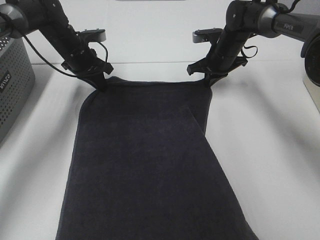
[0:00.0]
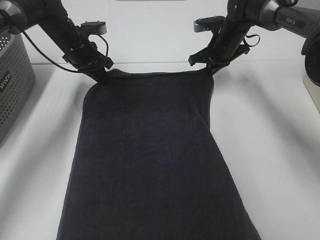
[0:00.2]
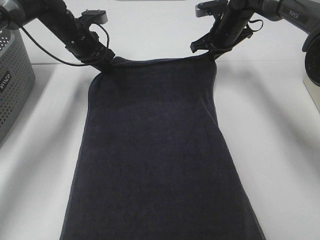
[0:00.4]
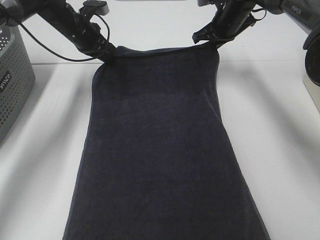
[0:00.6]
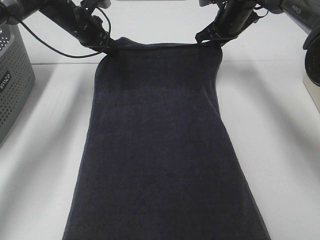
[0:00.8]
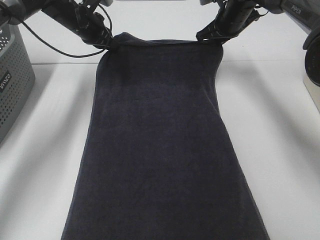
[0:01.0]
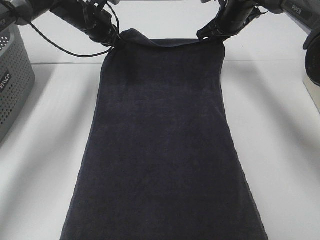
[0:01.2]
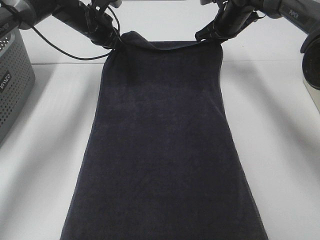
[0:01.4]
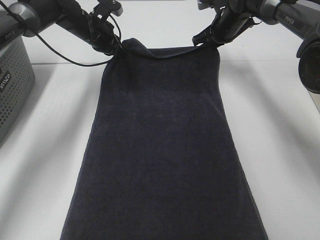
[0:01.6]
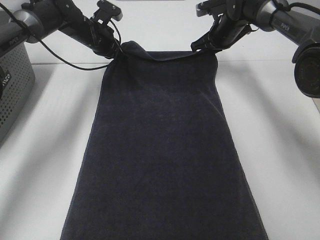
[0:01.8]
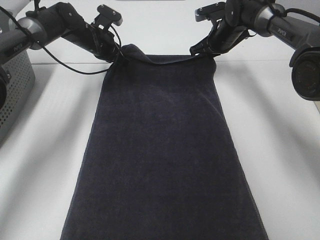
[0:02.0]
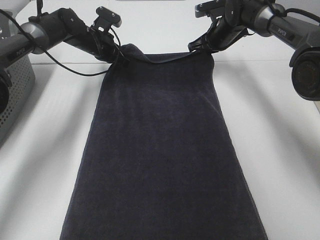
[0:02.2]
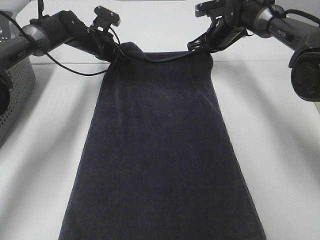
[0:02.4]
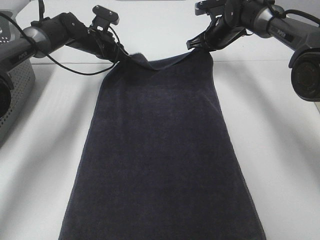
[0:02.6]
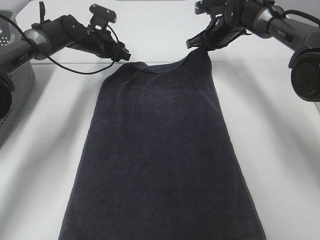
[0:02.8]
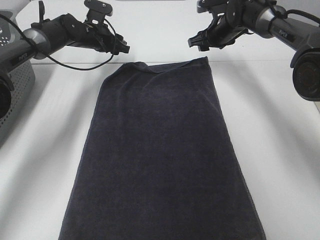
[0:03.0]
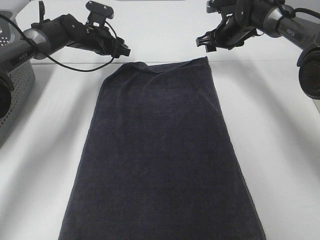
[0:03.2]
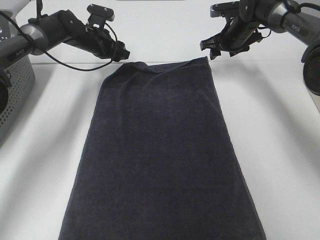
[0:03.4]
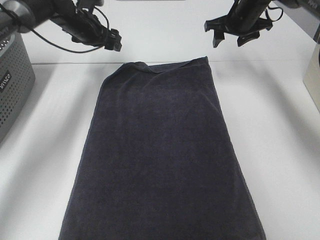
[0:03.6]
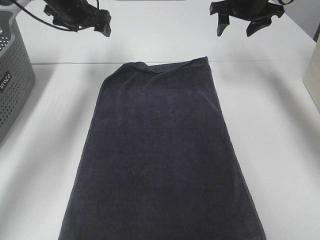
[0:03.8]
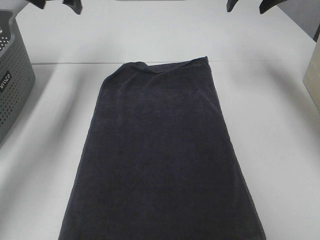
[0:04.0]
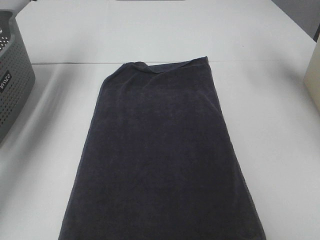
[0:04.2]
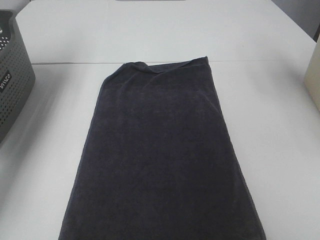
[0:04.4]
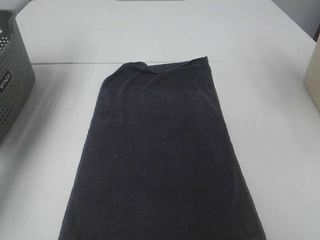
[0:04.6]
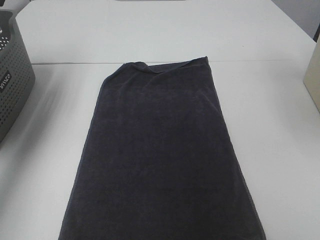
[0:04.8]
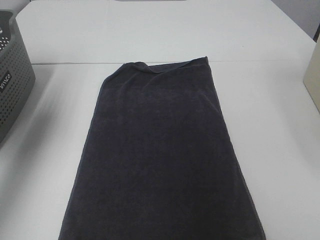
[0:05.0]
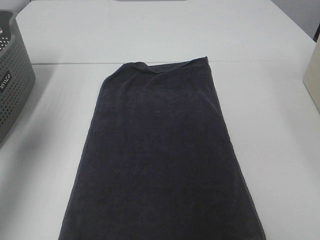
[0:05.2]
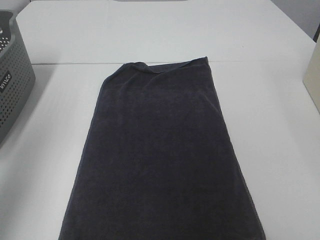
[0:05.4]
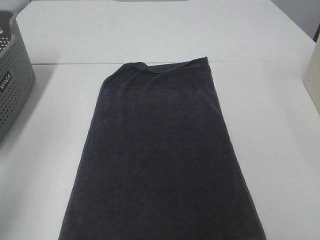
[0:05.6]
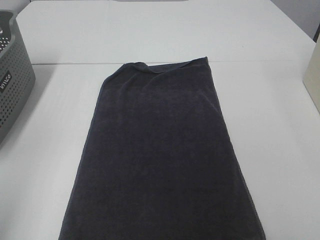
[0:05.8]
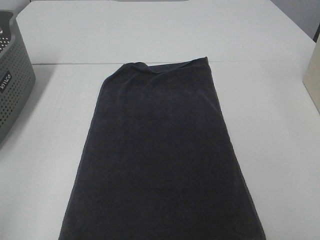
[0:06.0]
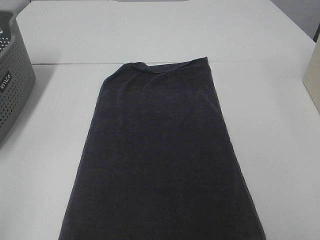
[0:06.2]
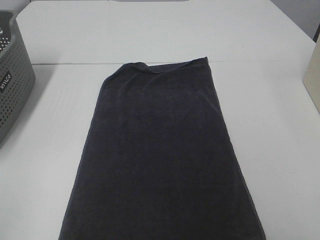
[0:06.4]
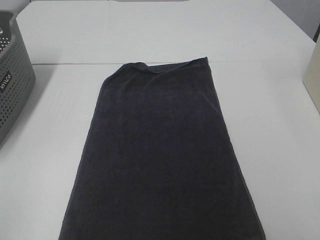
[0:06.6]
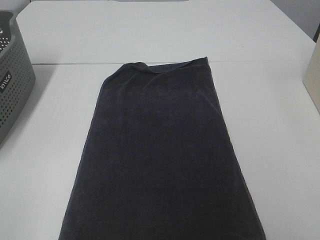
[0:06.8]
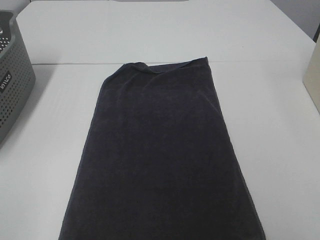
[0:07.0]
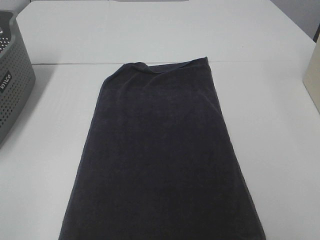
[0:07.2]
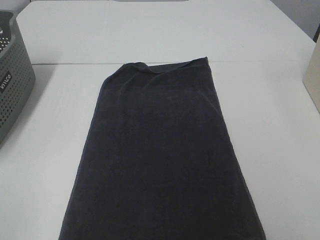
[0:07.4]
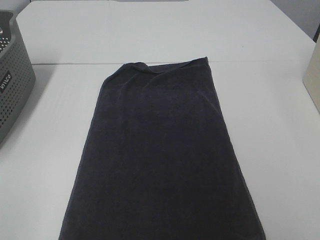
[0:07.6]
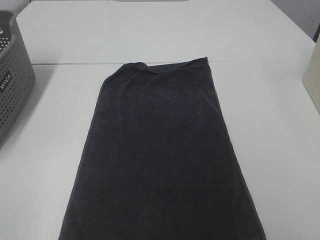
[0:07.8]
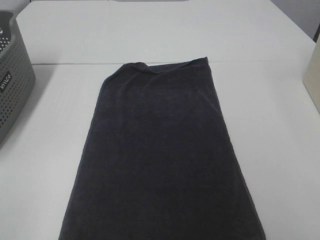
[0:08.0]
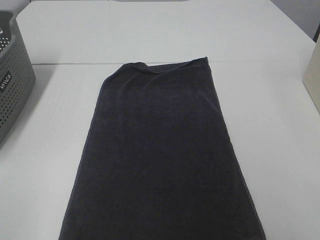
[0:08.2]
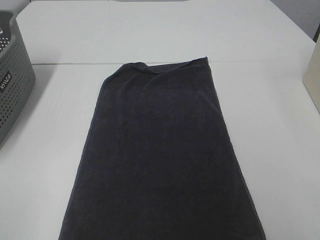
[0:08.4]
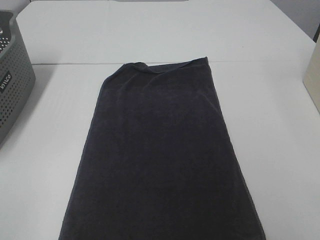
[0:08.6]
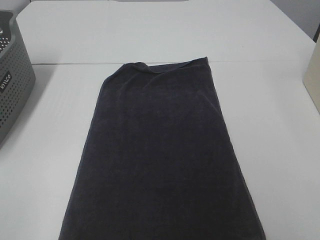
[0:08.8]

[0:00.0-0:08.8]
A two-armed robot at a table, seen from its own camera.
Task of the whole recording: Remove the towel and place it.
0:00.0 to 0:01.4: The right gripper goes approximately 5 cm upward. The left gripper ends up roughly 5 cm from where it was.
0:01.4 to 0:03.0: The right gripper opens, while the left gripper heads downward, covering roughly 5 cm, and opens its fingers.
0:03.0 to 0:04.4: The left gripper heads upward, to the left and backward, covering about 30 cm. Meanwhile the right gripper goes roughly 30 cm upward and backward.
0:04.4 to 0:05.8: Both grippers travel together backward, some 40 cm.
0:07.4 to 0:08.8: Neither gripper changes place.

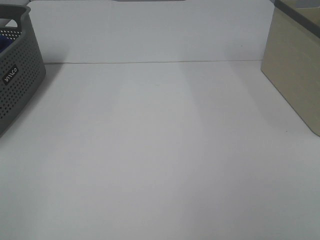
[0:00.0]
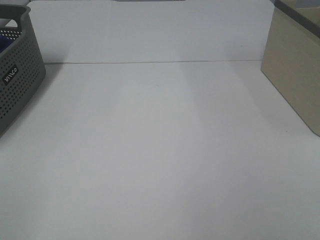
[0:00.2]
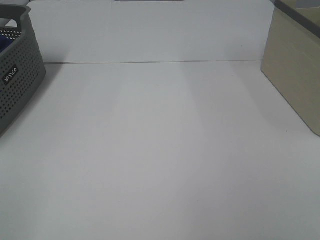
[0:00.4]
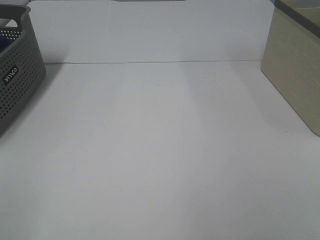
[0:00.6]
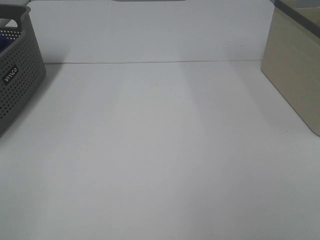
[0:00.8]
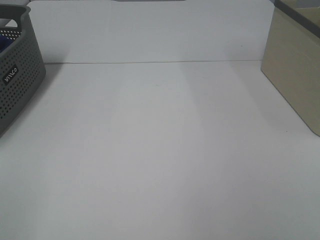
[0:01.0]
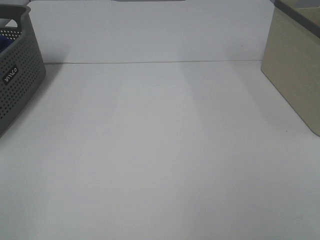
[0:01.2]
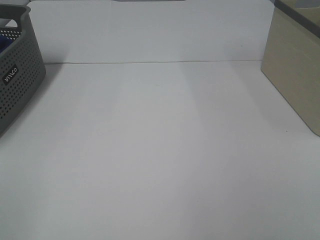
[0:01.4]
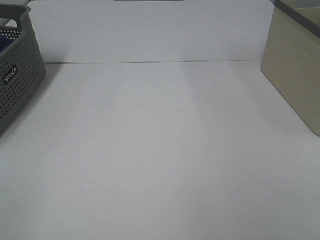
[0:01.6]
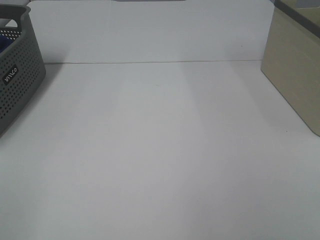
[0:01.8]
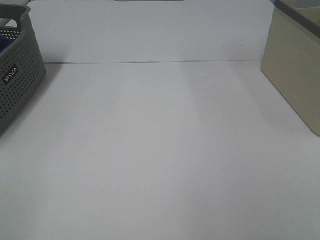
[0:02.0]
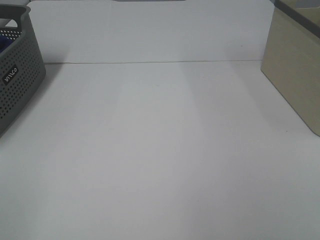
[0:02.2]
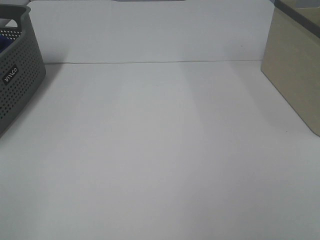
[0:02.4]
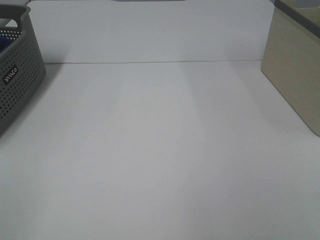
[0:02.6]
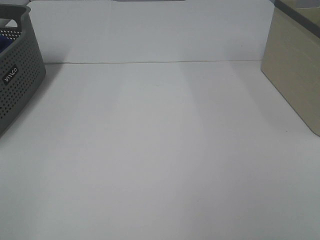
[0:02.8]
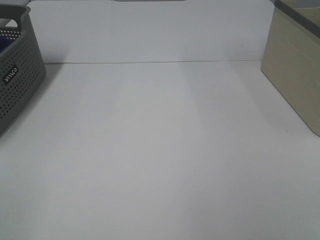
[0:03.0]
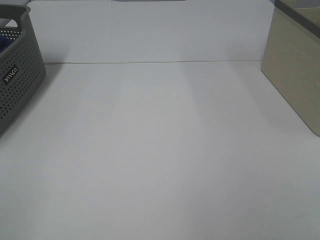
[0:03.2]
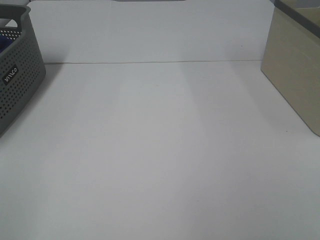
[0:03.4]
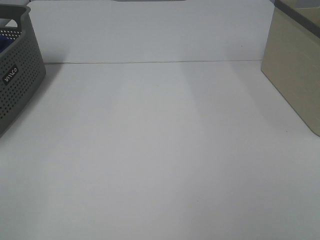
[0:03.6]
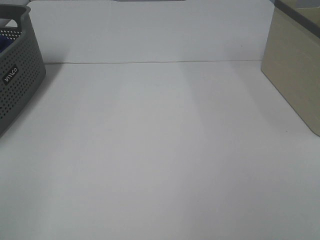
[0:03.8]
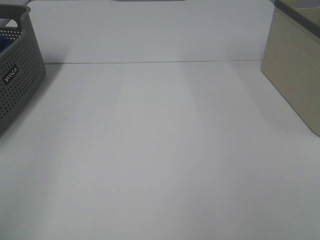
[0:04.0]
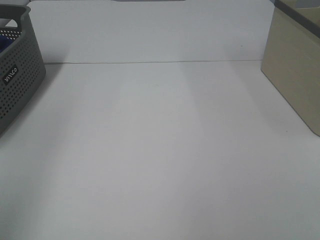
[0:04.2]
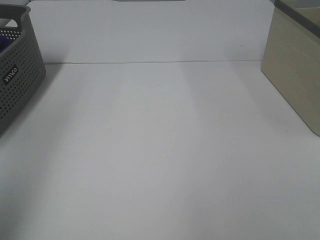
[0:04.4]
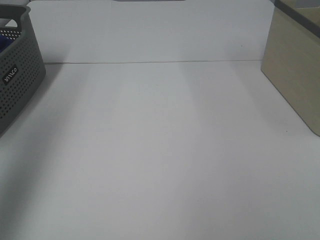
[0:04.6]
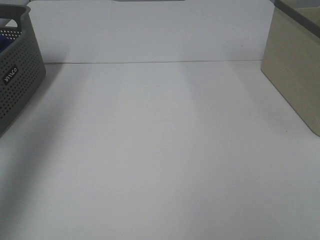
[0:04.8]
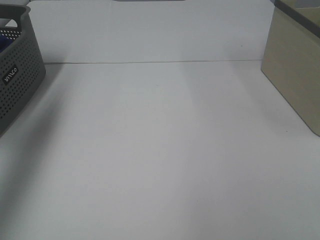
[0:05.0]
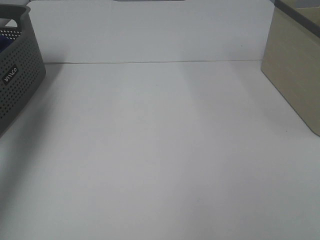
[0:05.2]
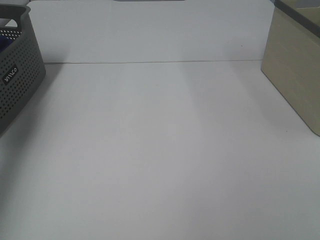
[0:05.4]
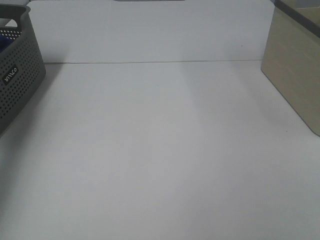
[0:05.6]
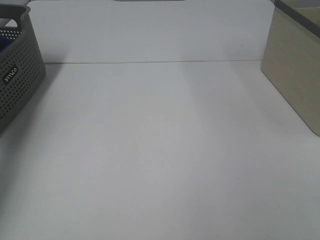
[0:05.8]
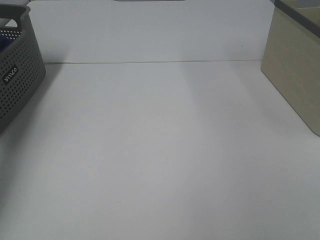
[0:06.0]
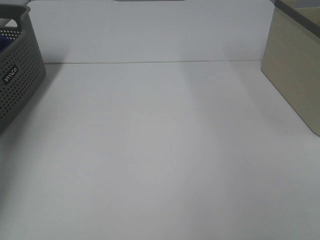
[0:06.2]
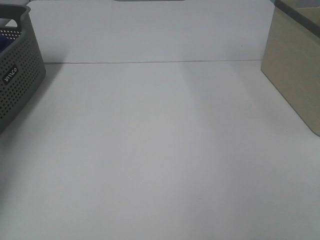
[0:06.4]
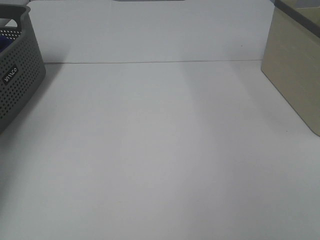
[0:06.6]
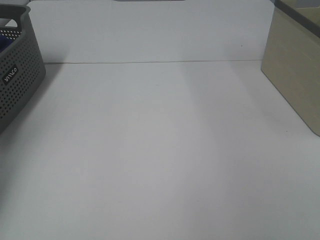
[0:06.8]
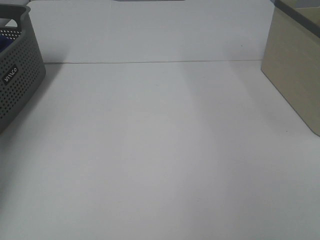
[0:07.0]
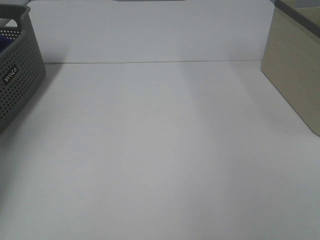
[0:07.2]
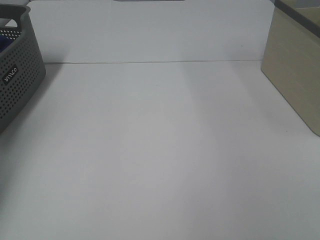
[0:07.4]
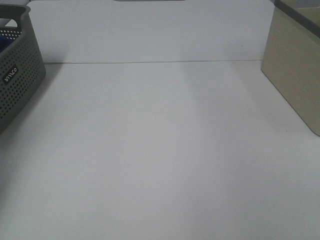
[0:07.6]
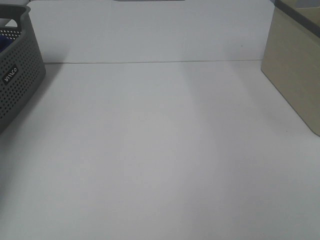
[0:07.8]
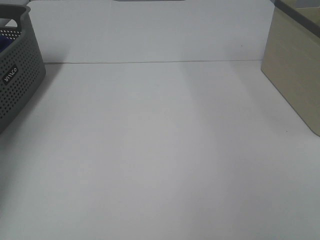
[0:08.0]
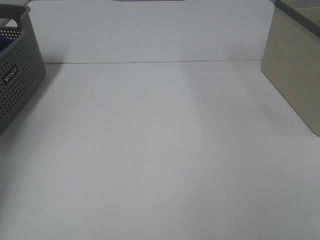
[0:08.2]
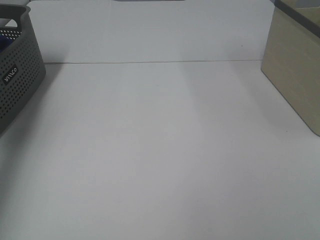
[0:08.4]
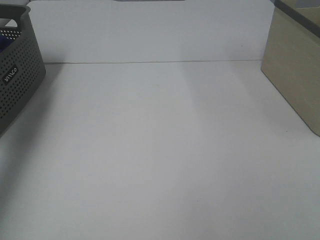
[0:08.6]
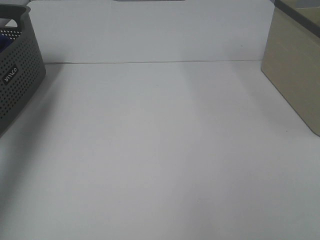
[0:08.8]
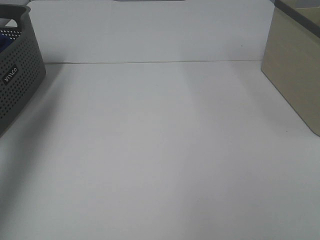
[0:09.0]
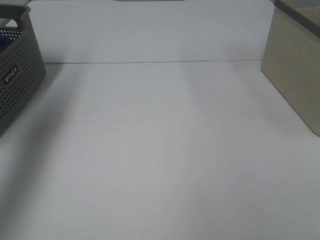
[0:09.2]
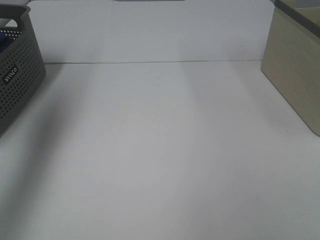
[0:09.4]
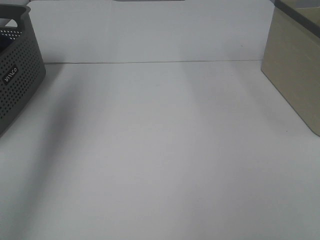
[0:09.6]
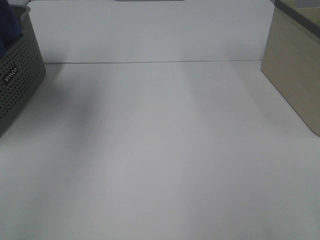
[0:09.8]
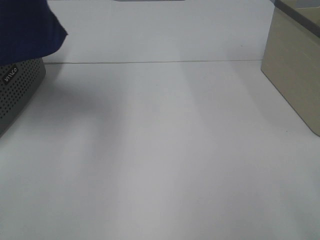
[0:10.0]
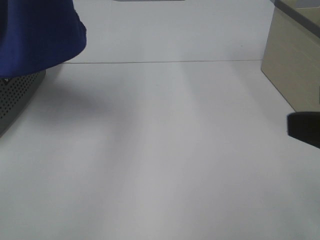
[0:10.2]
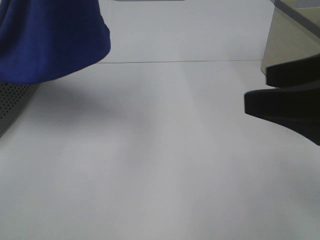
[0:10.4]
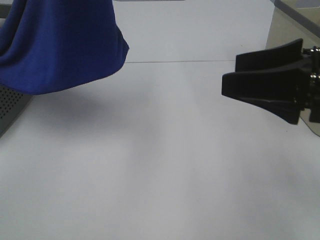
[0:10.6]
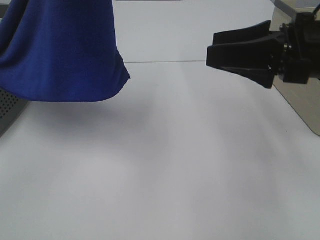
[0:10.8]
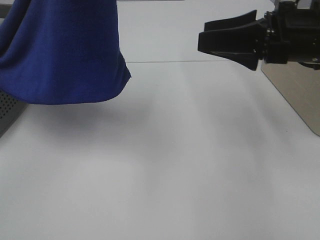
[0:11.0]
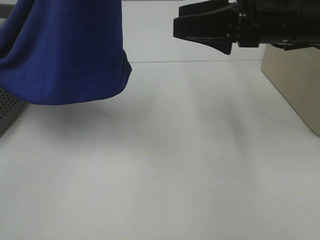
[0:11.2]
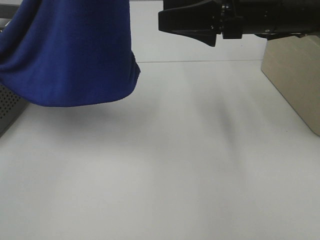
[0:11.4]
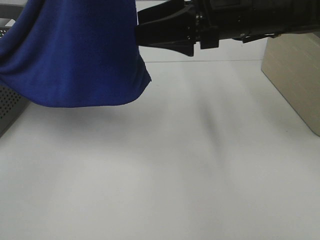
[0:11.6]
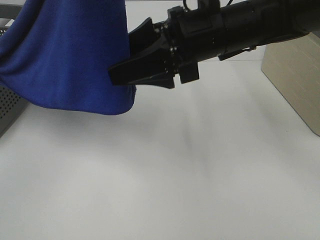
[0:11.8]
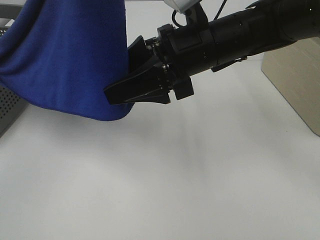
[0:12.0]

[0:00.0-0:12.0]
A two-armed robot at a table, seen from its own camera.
Task of the whole recording: Remove the towel and place it.
0:00.0 to 0:03.0: Neither gripper changes place.
0:03.0 to 0:04.4: The left gripper travels upward and forward by approximately 20 cm.
0:04.4 to 0:06.0: The left gripper shifts approximately 40 cm forward and downward.
0:07.6 to 0:09.0: The left gripper goes roughly 25 cm upward.
0:09.0 to 0:10.4: The right gripper shifts about 15 cm forward and to the left; the left gripper moves to the right and upward, approximately 25 cm.
0:10.4 to 0:12.0: The left gripper shifts by roughly 5 cm; the right gripper heads to the left and forward, covering approximately 20 cm.

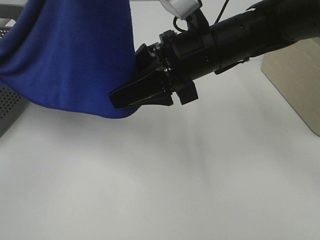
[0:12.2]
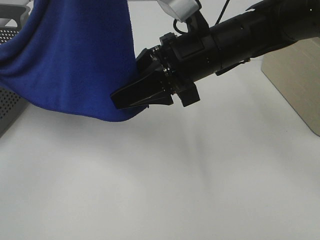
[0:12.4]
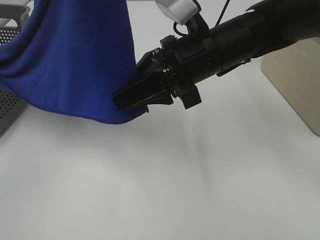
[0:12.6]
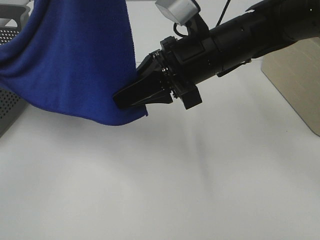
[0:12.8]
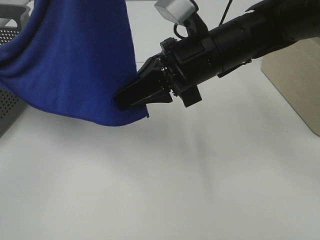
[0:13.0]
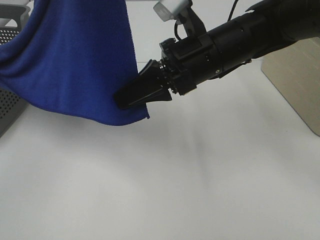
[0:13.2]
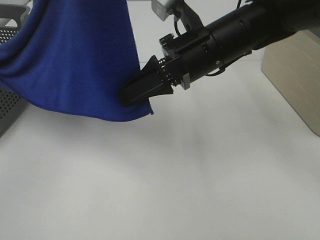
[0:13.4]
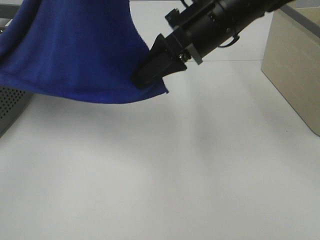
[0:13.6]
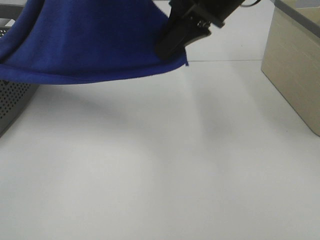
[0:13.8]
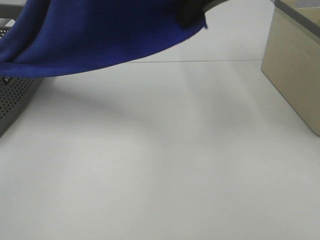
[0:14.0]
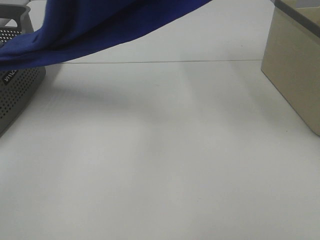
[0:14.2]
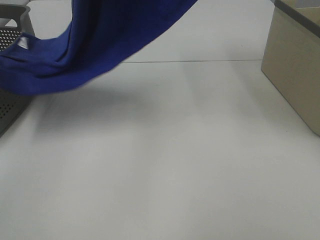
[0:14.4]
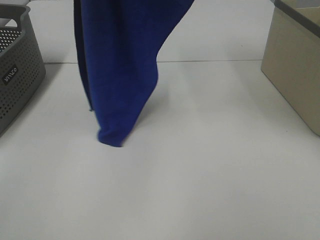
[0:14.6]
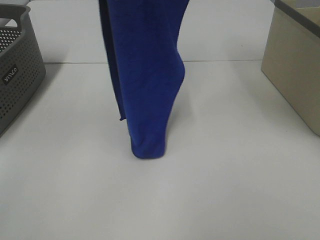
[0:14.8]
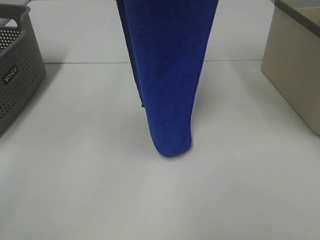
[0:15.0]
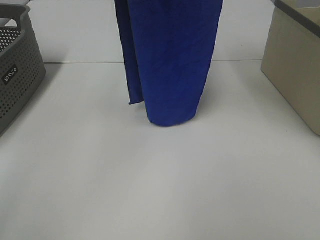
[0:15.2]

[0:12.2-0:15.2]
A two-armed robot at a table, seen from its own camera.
Task of the whole recording: Remove the towel and place it.
0:12.2 to 0:13.8: The right gripper shifts about 10 cm upward, and closes its fingers.
0:13.8 to 0:15.2: The left gripper is displaced forward by about 10 cm. Meanwhile the right gripper travels upward by some 20 cm.
